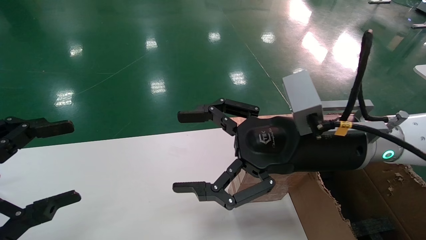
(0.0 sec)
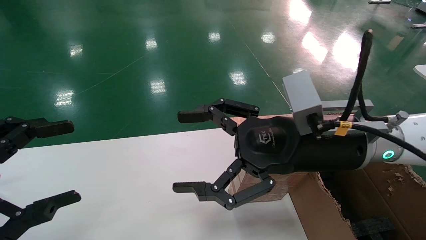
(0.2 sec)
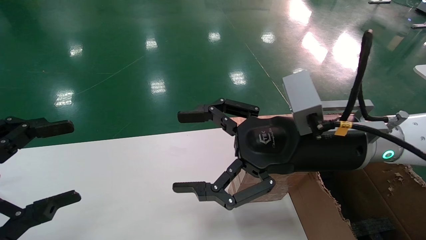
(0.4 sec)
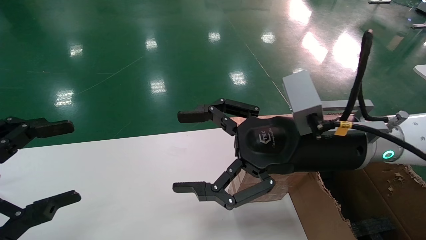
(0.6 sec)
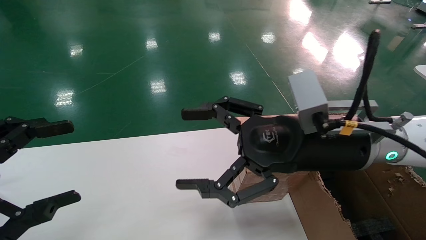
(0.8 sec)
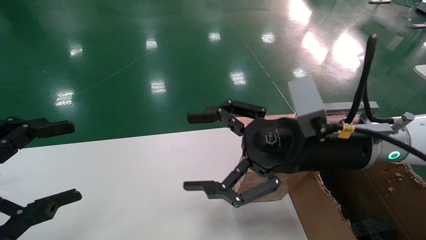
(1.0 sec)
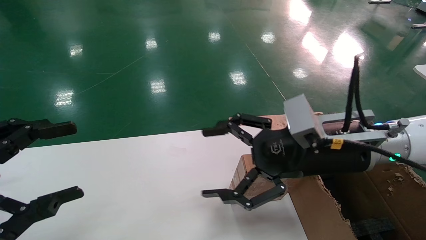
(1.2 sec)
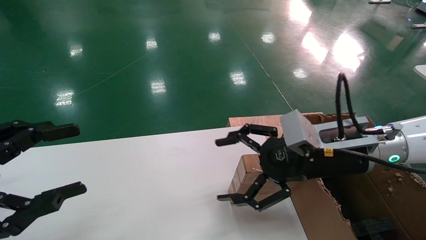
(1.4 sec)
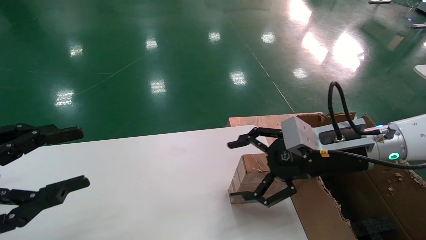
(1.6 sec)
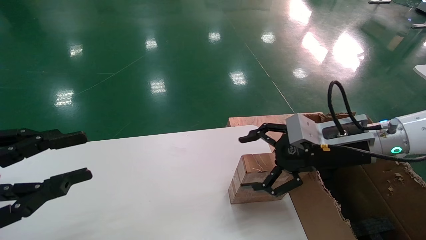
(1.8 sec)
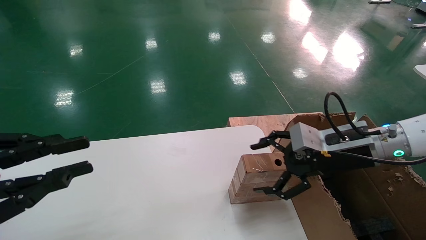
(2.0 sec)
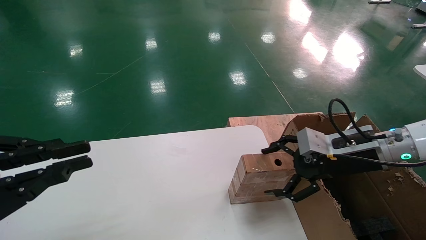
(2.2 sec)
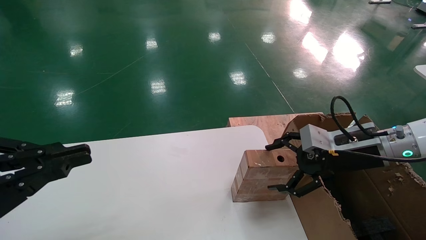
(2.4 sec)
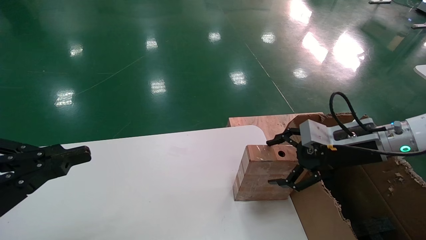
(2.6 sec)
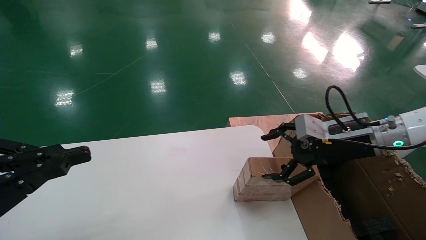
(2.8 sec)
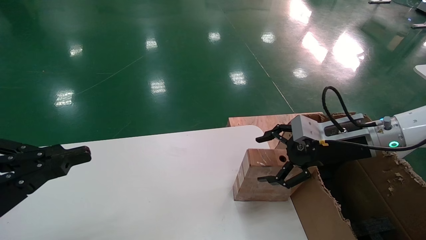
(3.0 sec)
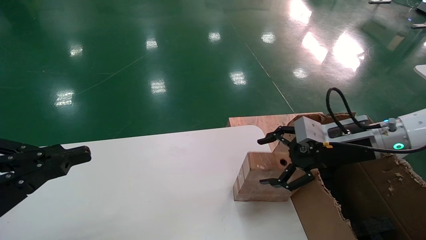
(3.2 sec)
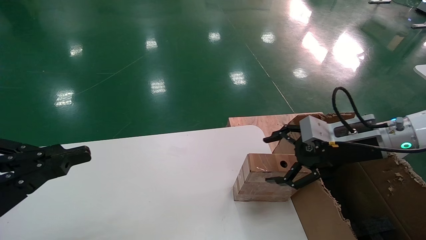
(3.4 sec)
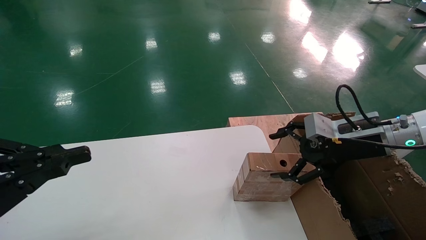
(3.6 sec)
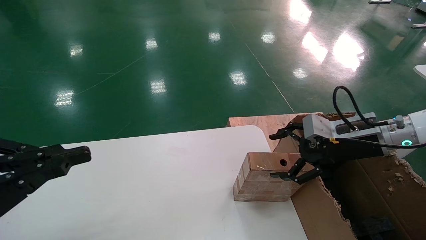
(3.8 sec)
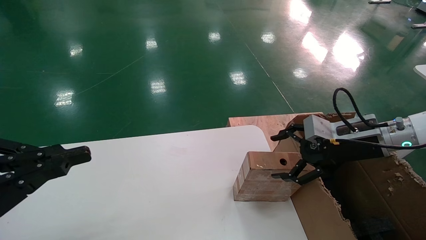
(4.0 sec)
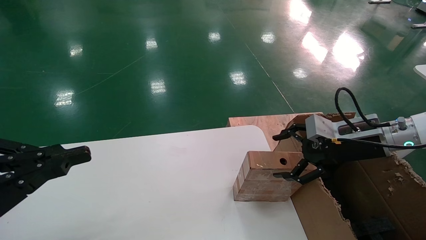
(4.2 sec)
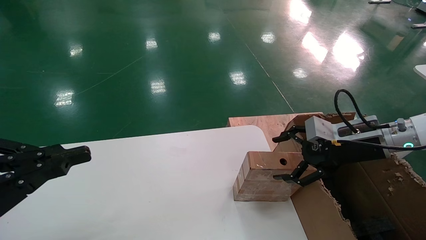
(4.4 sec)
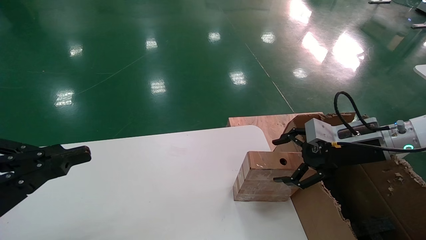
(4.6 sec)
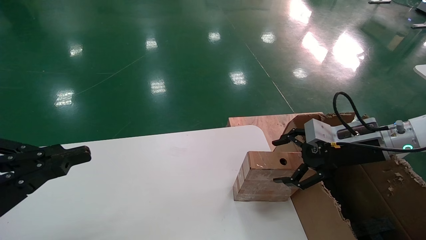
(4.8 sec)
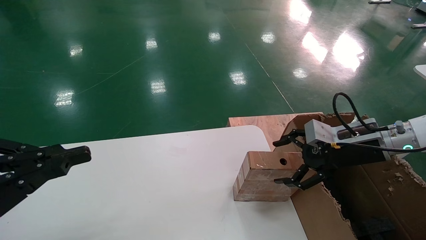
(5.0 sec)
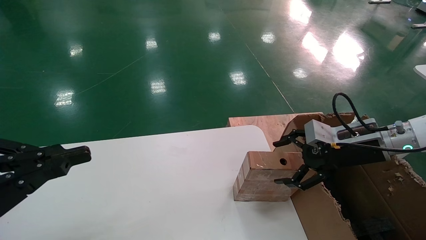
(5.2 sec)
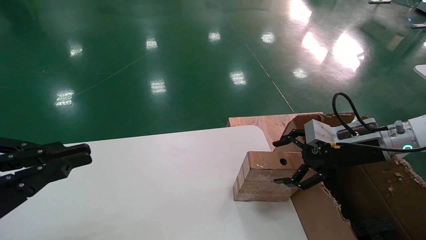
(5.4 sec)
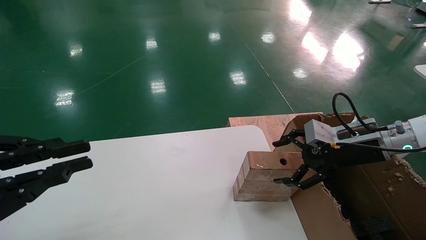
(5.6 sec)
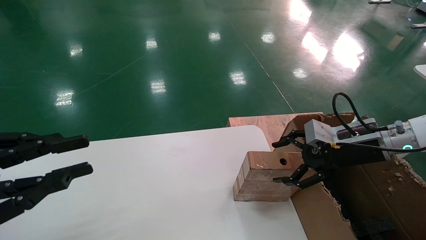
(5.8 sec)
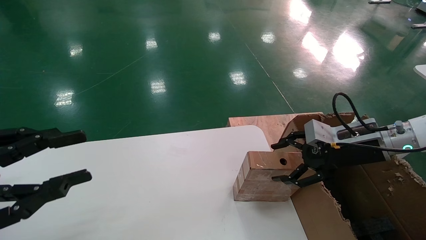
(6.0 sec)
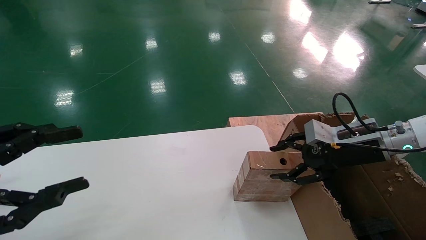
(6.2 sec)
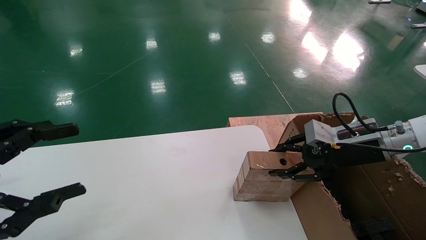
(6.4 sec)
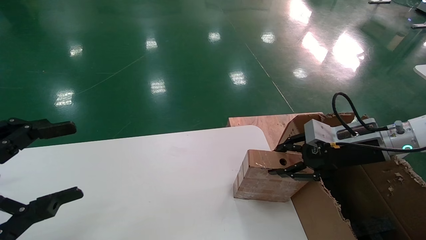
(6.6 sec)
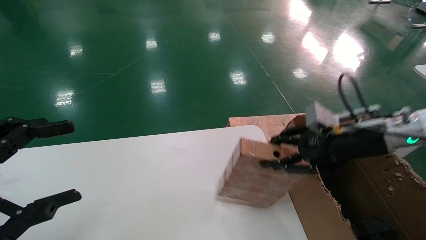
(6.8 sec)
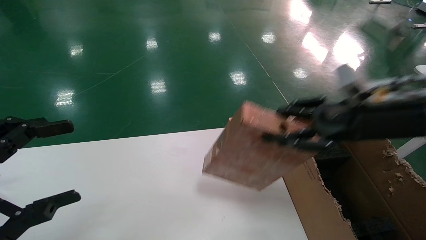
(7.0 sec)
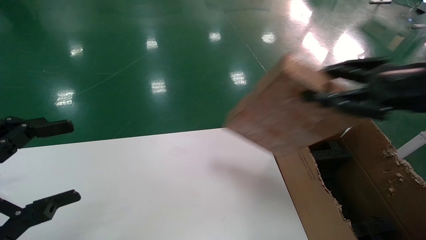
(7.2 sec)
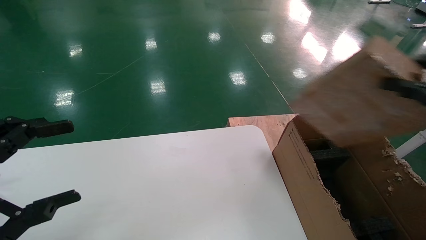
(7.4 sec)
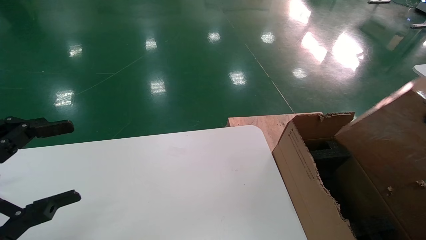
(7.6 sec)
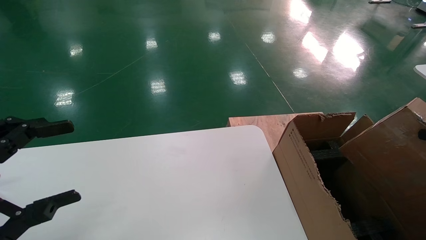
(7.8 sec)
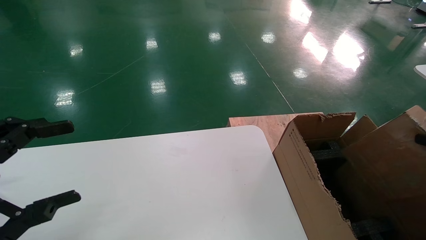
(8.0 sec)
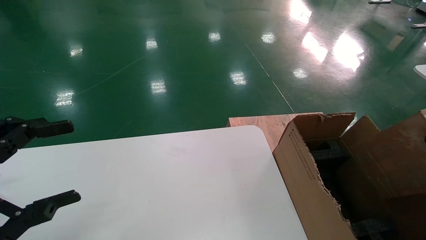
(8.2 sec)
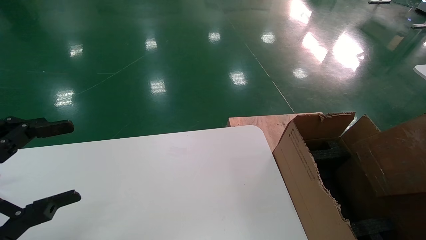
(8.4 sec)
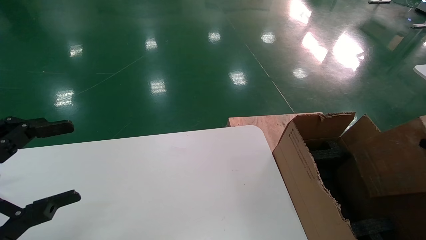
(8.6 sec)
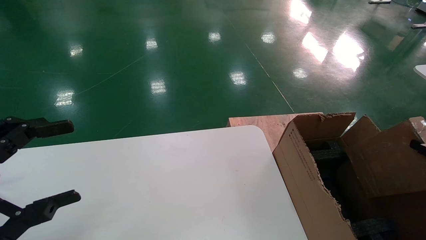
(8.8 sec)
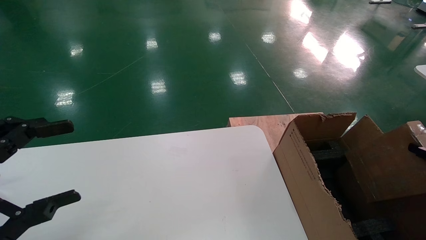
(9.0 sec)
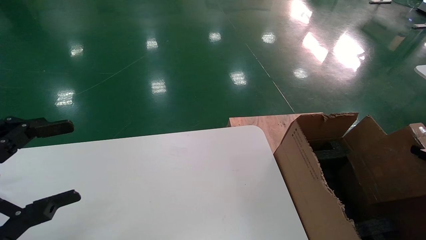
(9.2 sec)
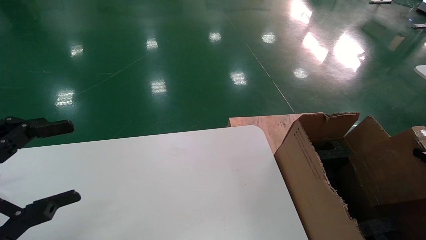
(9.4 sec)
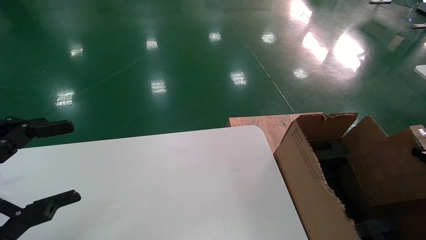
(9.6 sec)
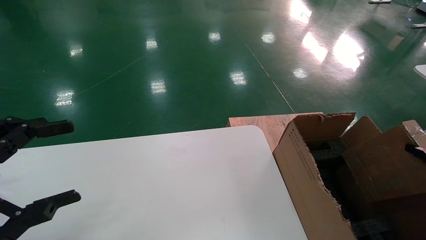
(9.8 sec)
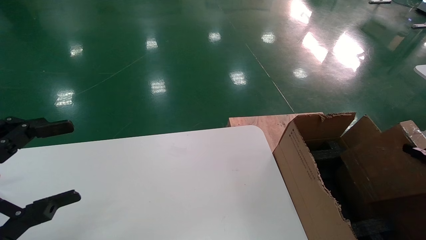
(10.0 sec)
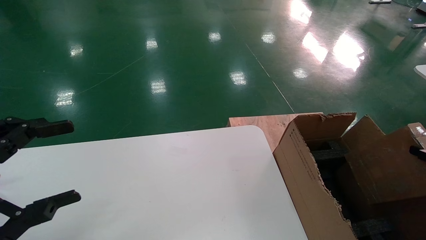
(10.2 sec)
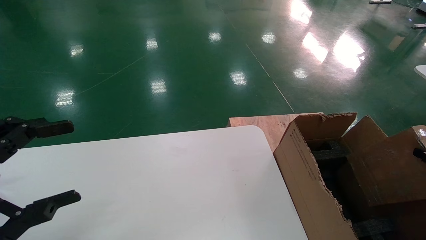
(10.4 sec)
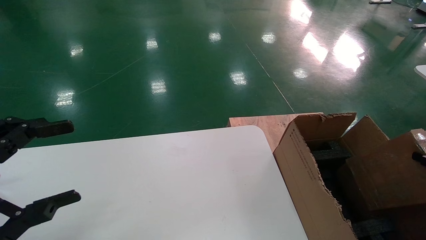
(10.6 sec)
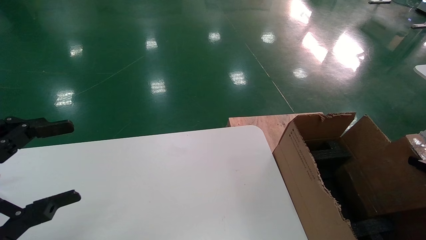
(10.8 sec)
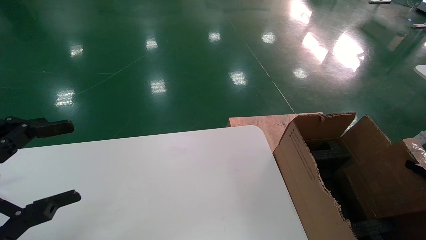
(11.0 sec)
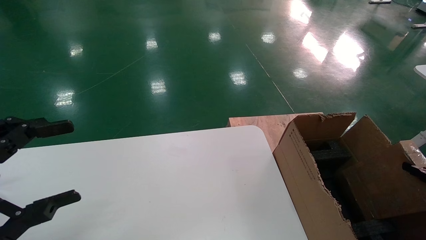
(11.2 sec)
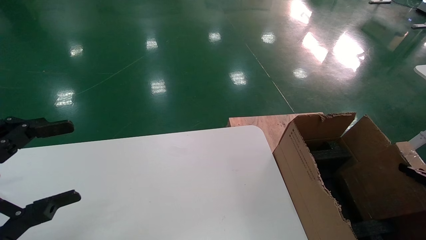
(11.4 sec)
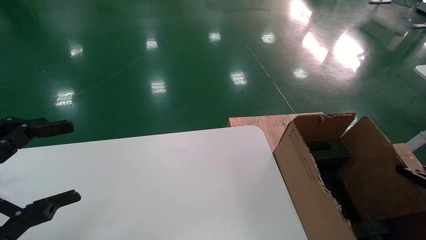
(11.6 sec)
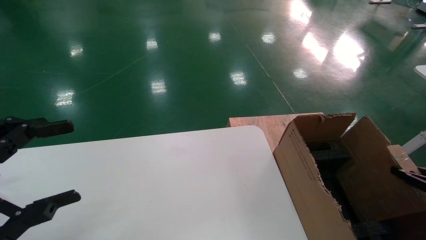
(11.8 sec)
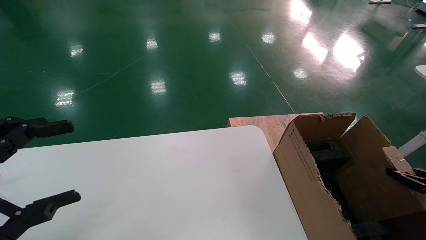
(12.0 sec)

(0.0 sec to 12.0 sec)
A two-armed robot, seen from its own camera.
Task of the whole recording: put the box on the table into the big box.
Step, 1.4 sec - 6.6 sec: Pick up the mouse and the power cord paper box.
0.0 sec - 1.6 sec: The right gripper moves to the right, about 5 cm.
1.6 sec - 3.0 sec: The right gripper travels to the right by roughly 5 cm. The left gripper closes its fingers.
3.0 sec - 4.4 sec: The grippers move only a little.
4.4 sec - 6.0 sec: The left gripper opens.
6.0 sec - 7.6 sec: The right gripper heads backward and to the right, covering about 25 cm, and closes. The left gripper opens its fingers.
7.6 sec - 9.0 sec: The right gripper moves downward and to the right, about 15 cm.
9.0 sec - 10.4 sec: Both grippers stay put.
10.4 sec - 12.0 sec: The right gripper changes place by approximately 5 cm.

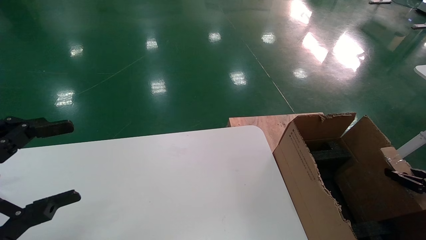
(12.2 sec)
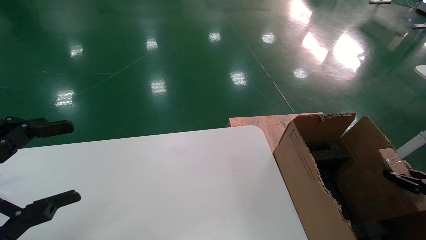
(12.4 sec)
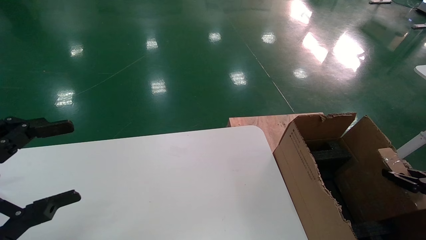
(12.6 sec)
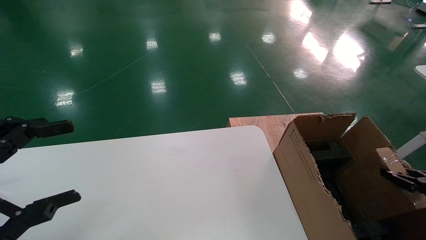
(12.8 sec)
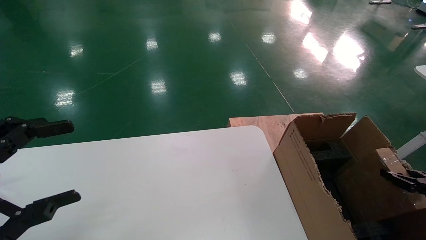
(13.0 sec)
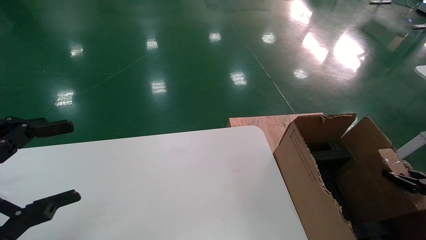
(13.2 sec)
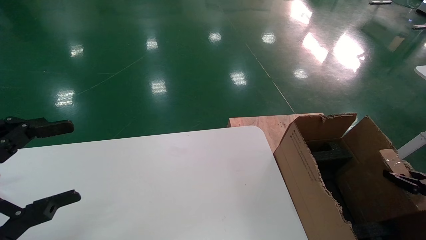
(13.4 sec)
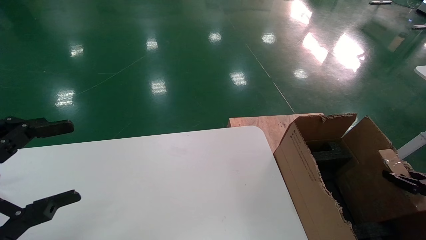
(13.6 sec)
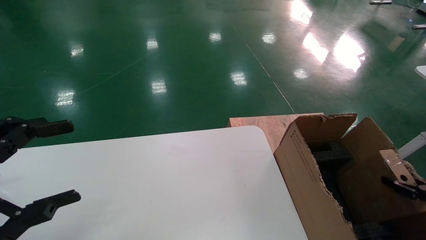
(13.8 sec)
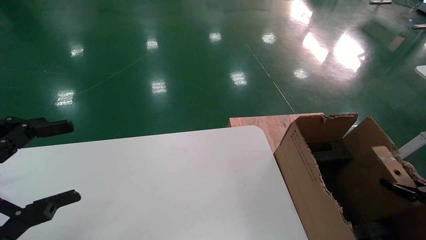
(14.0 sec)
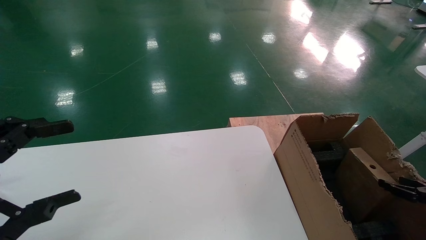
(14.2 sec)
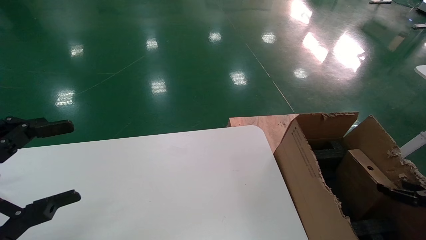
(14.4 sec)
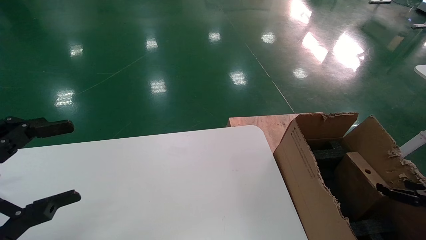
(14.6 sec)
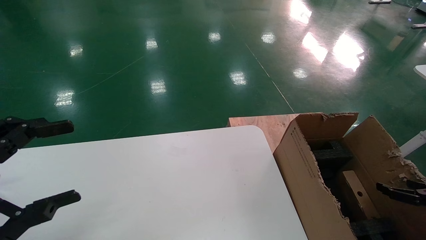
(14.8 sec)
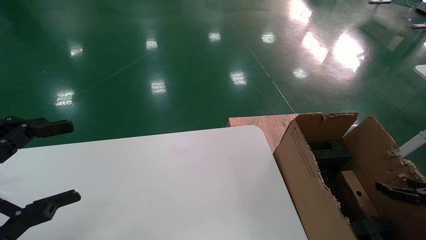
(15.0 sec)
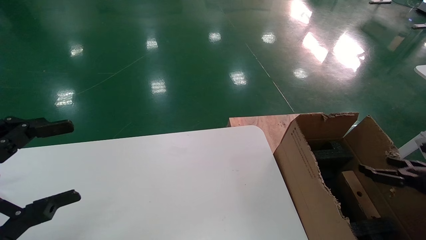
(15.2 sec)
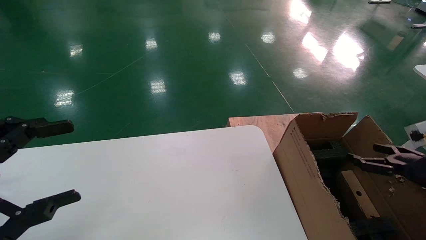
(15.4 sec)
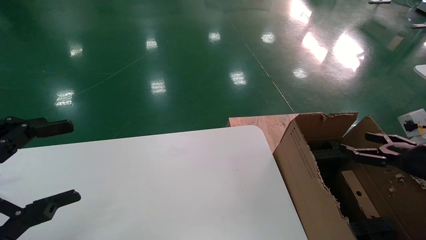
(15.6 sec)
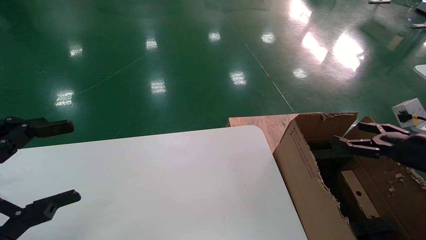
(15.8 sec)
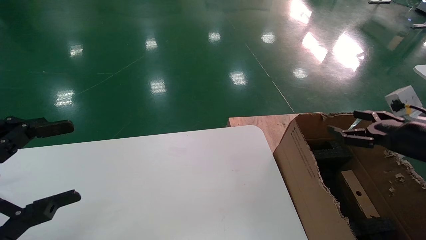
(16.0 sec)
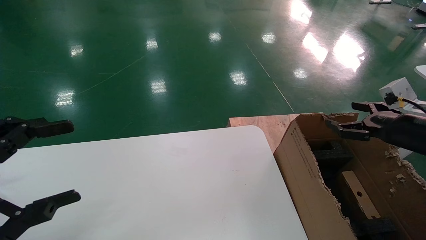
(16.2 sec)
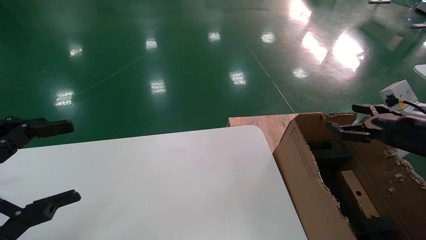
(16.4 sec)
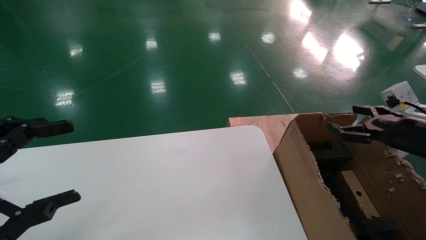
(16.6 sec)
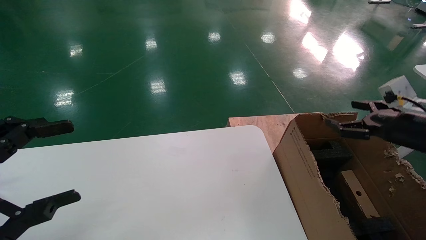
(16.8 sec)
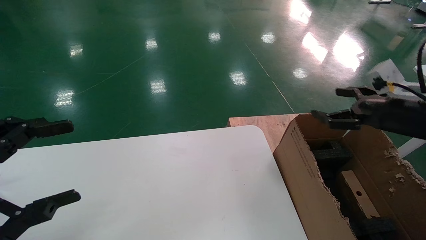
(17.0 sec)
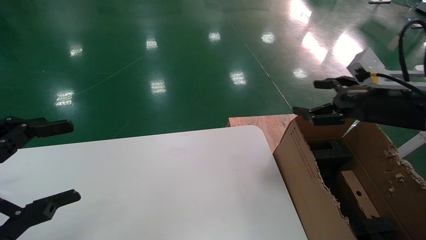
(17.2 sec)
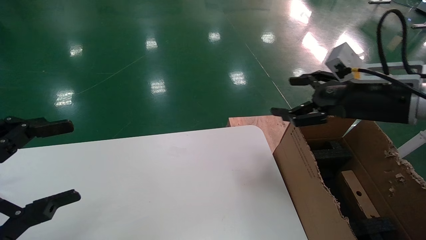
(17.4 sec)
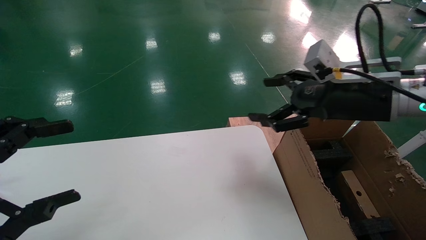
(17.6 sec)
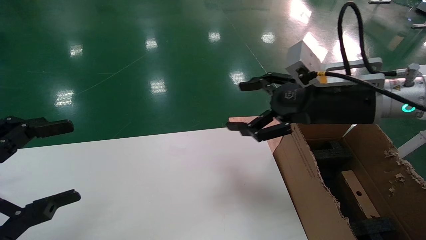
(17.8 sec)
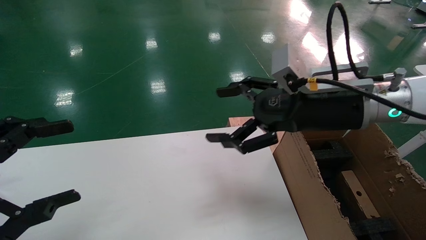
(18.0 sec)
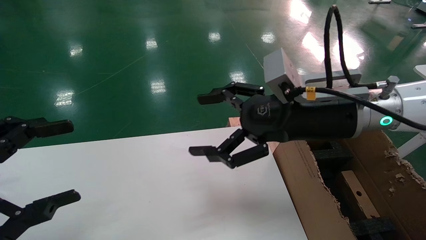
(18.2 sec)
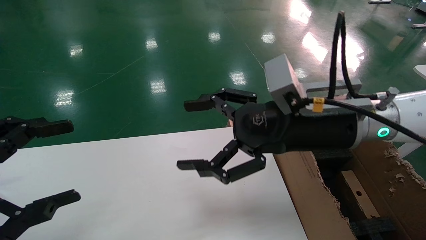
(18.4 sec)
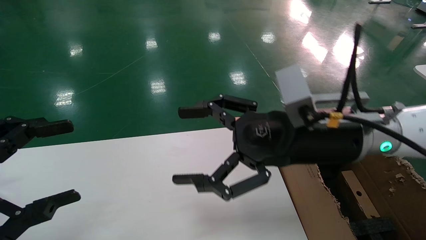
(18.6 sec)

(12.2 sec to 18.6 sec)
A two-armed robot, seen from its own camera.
Task of the whole recording: put the box on the table into the big box.
Step, 12.2 sec - 14.4 sec: Place the mouse and the power cord paper box into the container.
12.2 sec - 13.8 sec: The grippers move only a little.
13.8 sec - 15.4 sec: The right gripper is displaced upward and to the left by some 10 cm, and opens.
15.4 sec - 17.0 sec: The right gripper heads upward and to the left, covering about 15 cm.
17.0 sec - 18.6 sec: The right gripper goes roughly 20 cm to the left.
